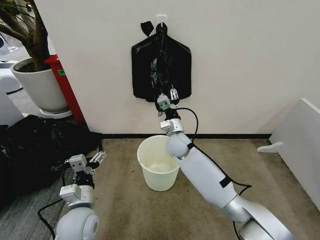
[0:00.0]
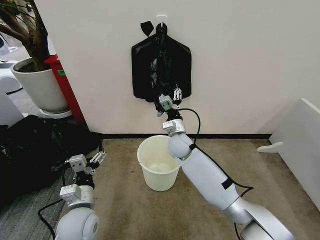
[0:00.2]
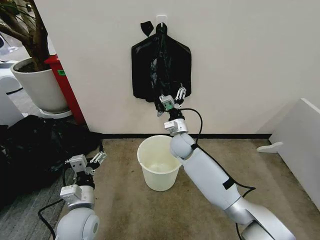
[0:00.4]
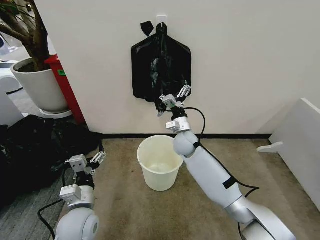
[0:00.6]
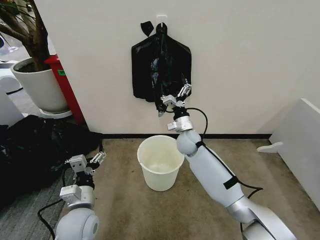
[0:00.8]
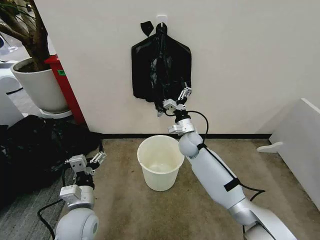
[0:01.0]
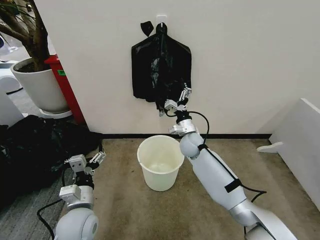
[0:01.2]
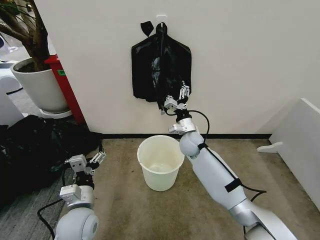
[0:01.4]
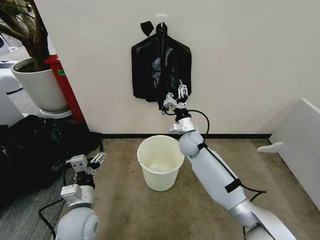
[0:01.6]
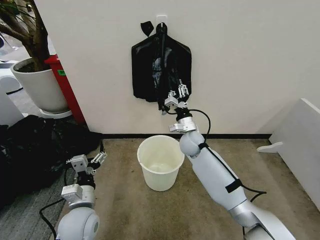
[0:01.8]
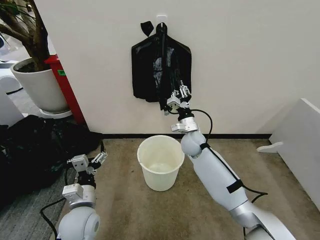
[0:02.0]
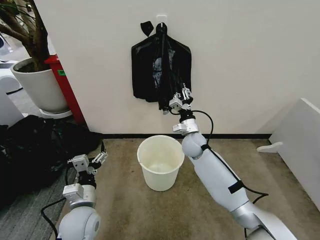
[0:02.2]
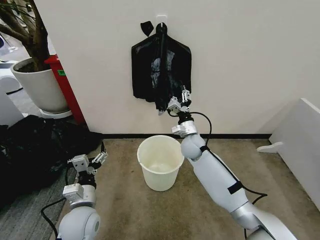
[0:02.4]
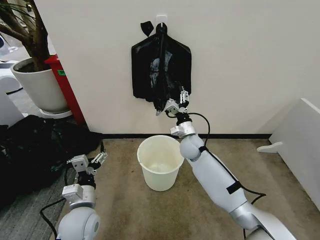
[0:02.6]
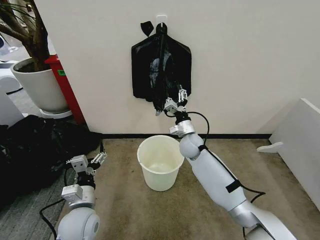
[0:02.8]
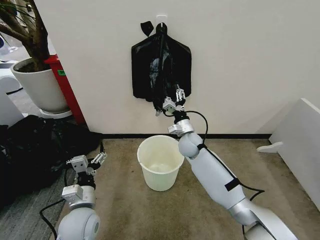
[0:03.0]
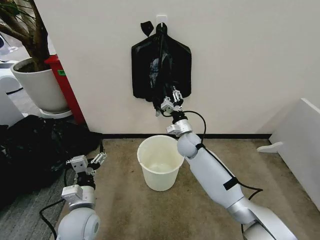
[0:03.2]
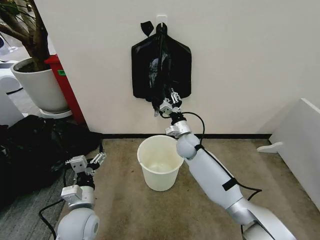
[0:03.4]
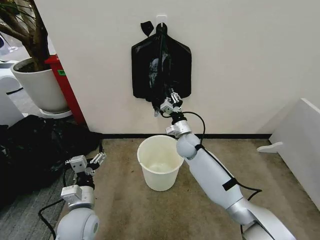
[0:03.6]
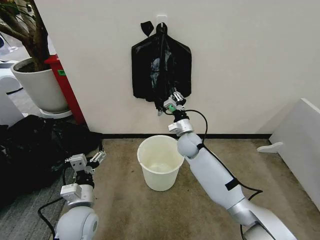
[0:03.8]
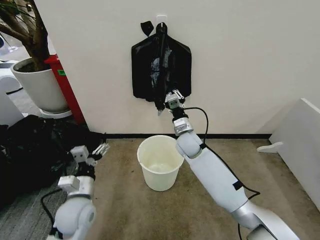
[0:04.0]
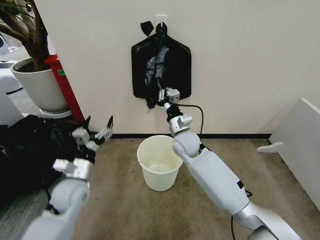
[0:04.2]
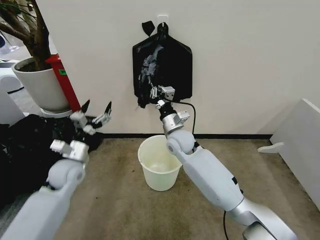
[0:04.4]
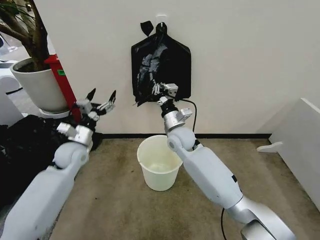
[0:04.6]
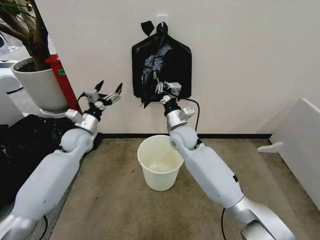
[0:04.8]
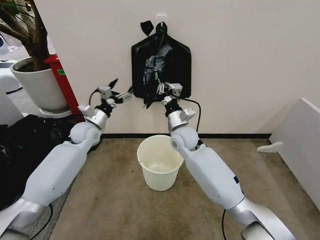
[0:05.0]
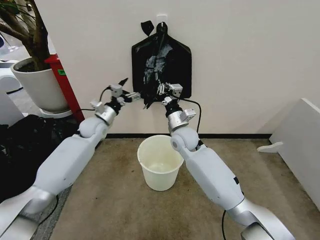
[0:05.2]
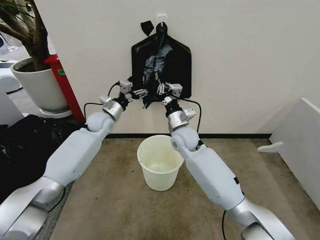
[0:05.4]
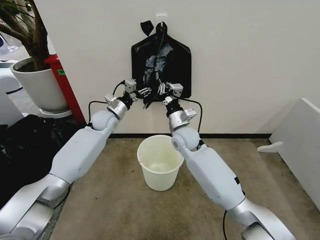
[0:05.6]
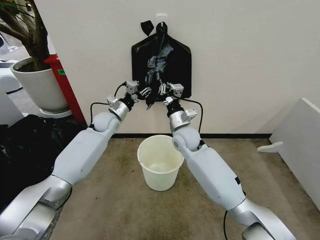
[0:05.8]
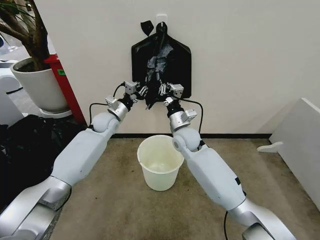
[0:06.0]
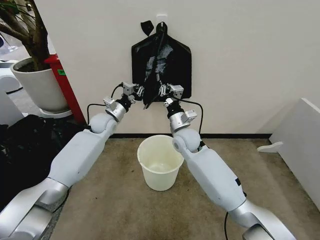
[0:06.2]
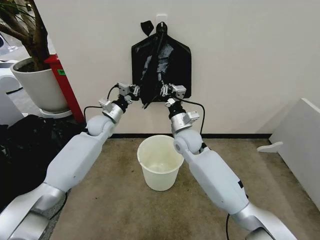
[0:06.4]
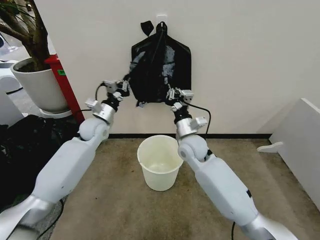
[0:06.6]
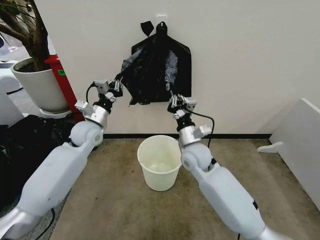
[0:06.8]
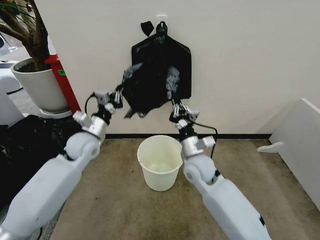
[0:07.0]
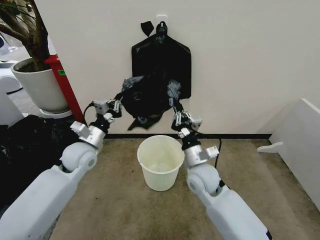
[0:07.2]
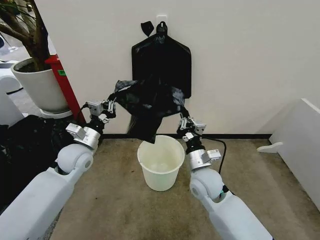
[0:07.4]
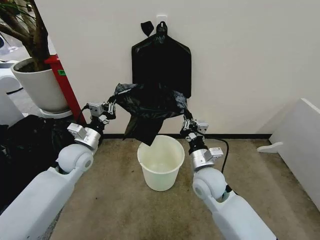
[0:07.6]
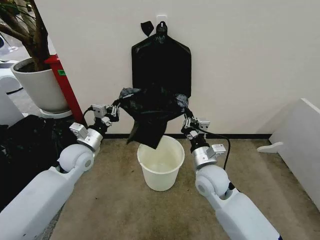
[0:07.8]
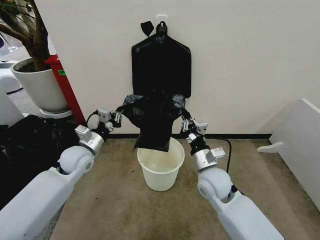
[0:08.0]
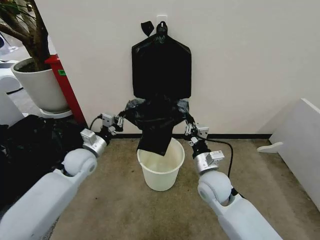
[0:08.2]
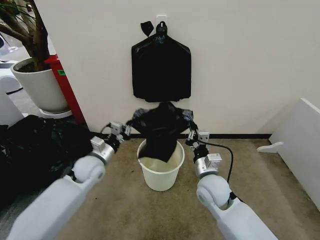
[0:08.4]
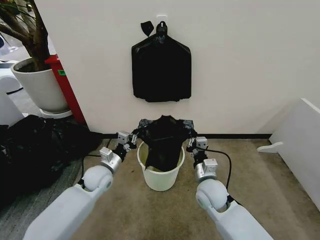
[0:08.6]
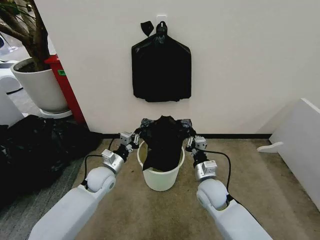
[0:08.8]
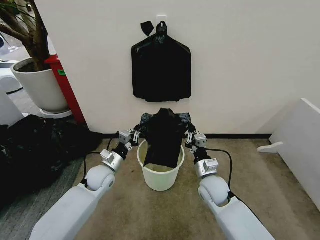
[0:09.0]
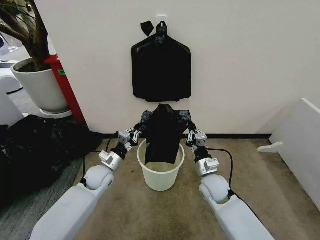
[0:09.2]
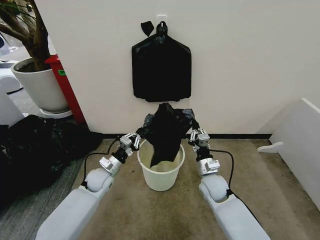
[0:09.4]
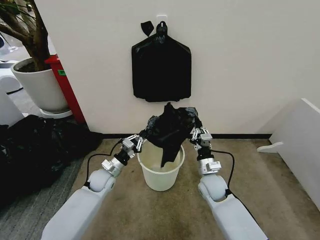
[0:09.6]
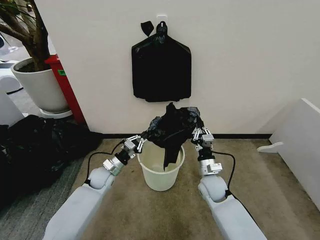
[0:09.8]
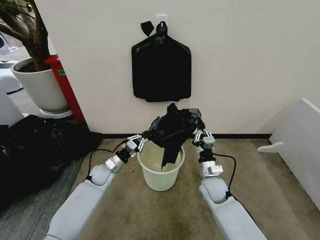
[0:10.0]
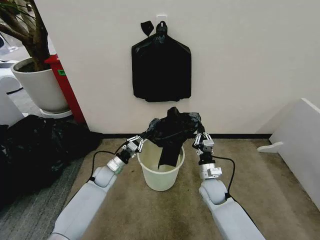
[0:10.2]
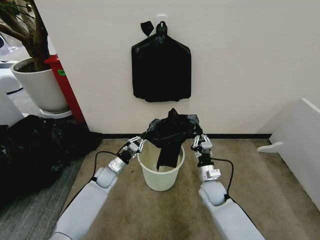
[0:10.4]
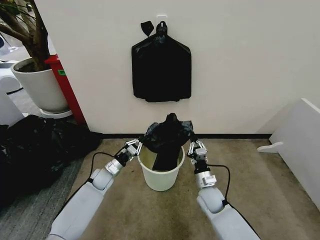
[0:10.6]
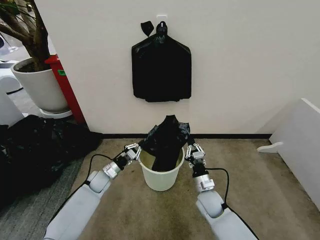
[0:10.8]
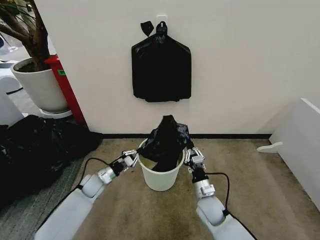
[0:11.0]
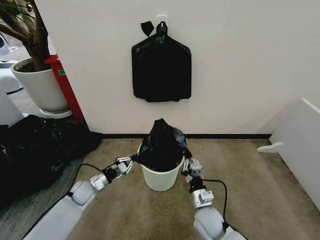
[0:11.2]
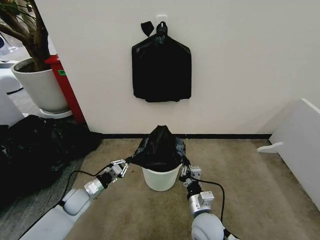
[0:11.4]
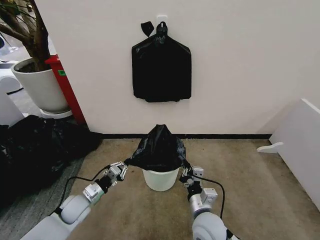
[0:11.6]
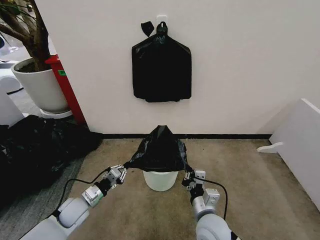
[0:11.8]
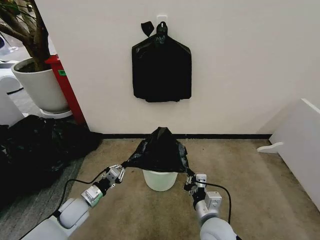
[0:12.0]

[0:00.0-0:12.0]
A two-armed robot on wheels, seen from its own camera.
Task of the whole recording: Place the garbage bag over the trash bin.
0:00.0 to 0:01.6: The right gripper moves to the right, roughly 5 cm, and opens, then closes again.
0:01.6 to 0:03.0: There are only small adjustments of the grippers.
0:03.0 to 0:04.4: The left gripper shifts roughly 15 cm forward and to the left, while the right gripper heads upward and to the left, covering roughly 10 cm, and closes its fingers.
0:04.4 to 0:06.0: The left gripper goes approximately 20 cm forward and to the right, and closes.
0:06.0 to 0:07.6: The grippers both shift backward by roughly 15 cm.
0:07.6 to 0:09.0: The left gripper heads downward, covering roughly 10 cm, while the right gripper shifts approximately 10 cm downward.
0:09.0 to 0:10.4: Both grippers move downward, roughly 10 cm.
0:10.4 to 0:12.0: The left gripper travels backward and to the left by about 15 cm. Meanwhile the right gripper goes some 15 cm backward and upward.

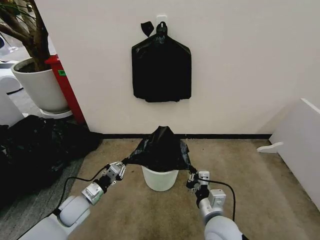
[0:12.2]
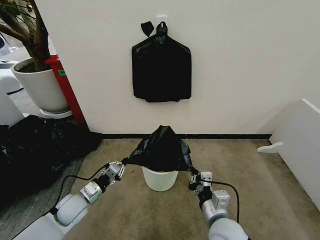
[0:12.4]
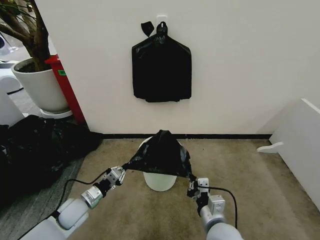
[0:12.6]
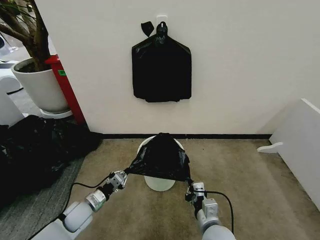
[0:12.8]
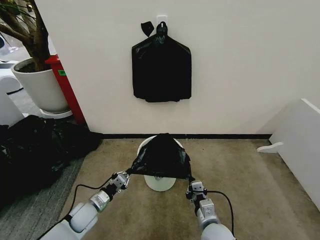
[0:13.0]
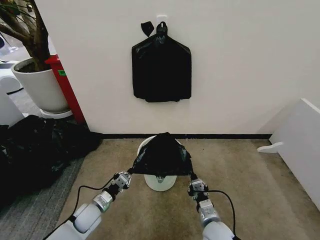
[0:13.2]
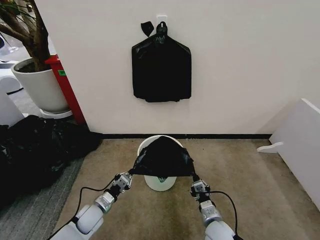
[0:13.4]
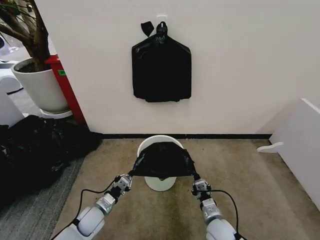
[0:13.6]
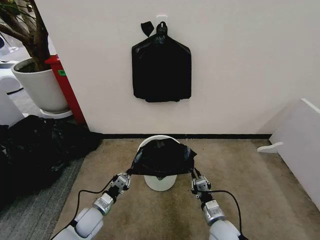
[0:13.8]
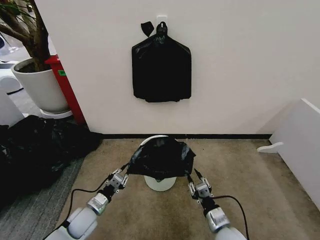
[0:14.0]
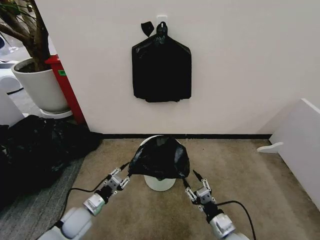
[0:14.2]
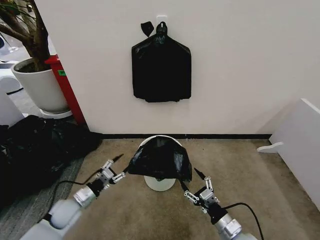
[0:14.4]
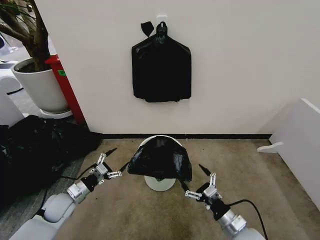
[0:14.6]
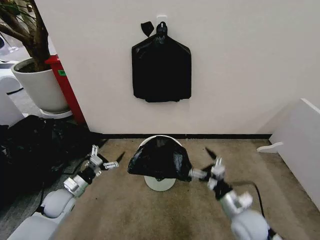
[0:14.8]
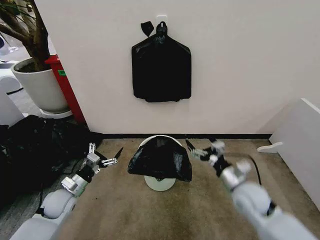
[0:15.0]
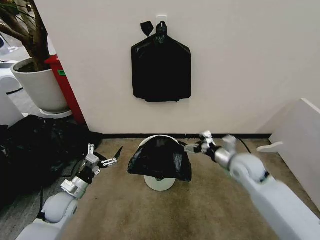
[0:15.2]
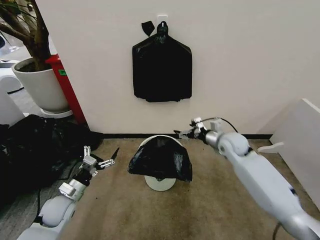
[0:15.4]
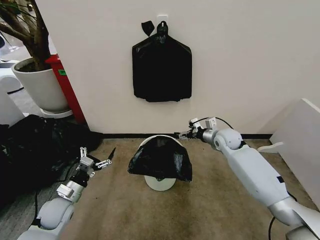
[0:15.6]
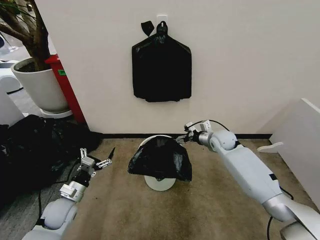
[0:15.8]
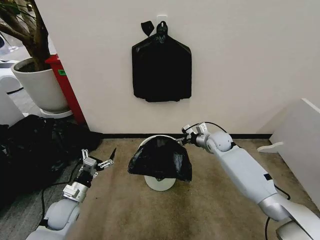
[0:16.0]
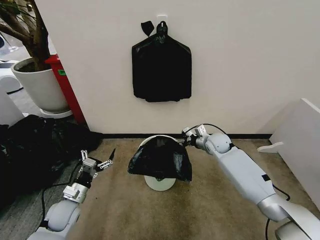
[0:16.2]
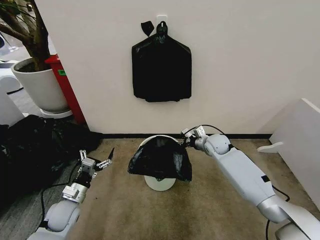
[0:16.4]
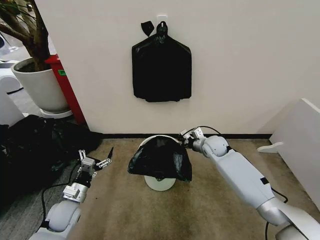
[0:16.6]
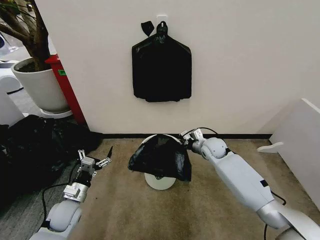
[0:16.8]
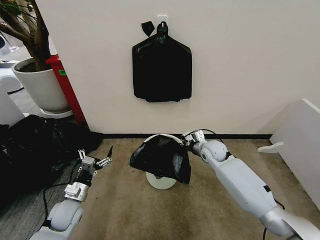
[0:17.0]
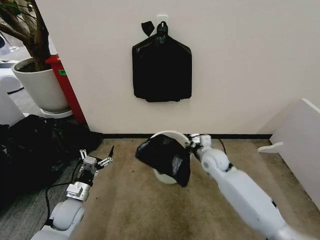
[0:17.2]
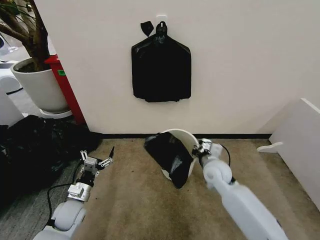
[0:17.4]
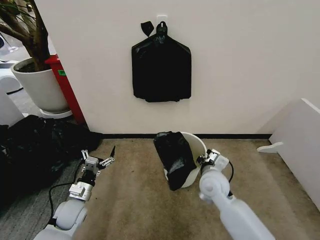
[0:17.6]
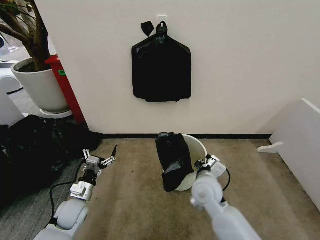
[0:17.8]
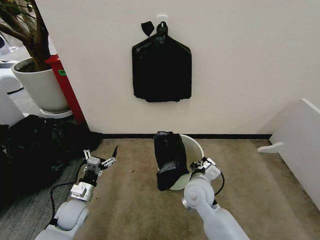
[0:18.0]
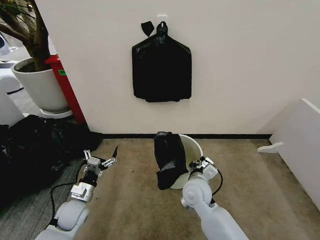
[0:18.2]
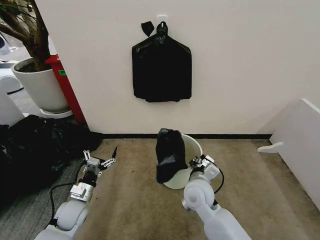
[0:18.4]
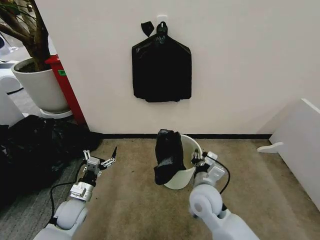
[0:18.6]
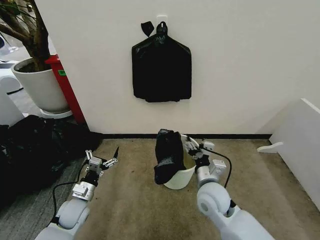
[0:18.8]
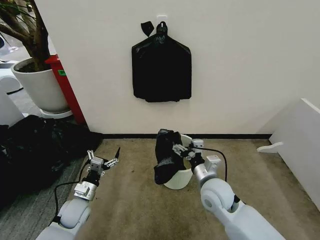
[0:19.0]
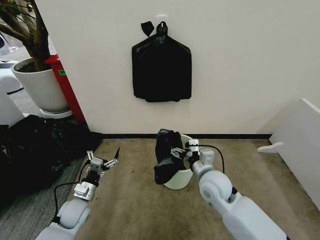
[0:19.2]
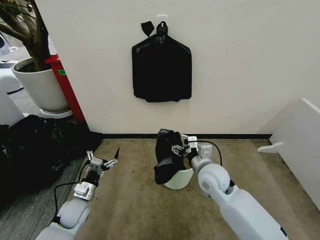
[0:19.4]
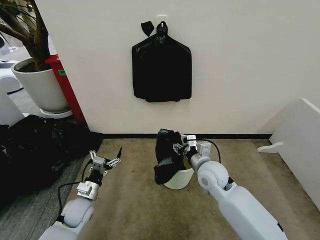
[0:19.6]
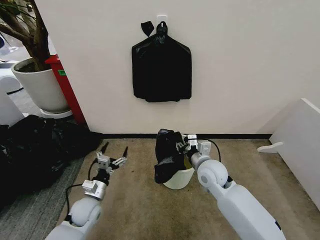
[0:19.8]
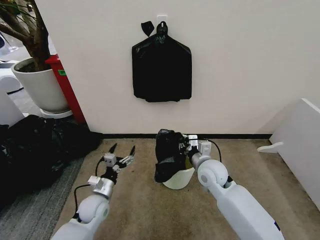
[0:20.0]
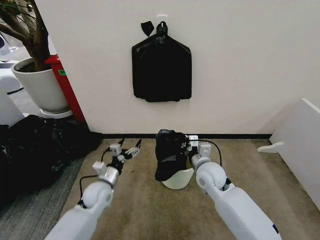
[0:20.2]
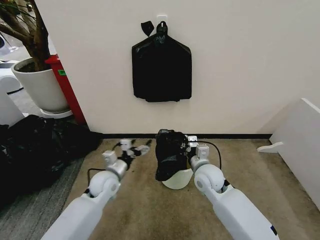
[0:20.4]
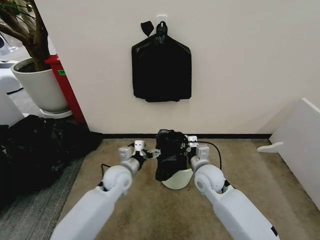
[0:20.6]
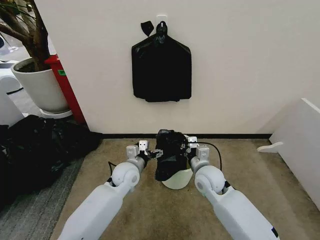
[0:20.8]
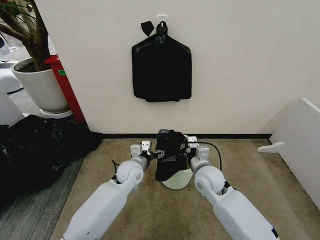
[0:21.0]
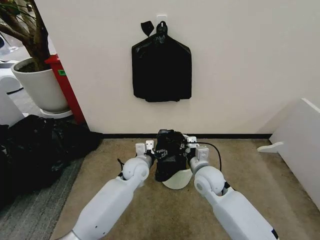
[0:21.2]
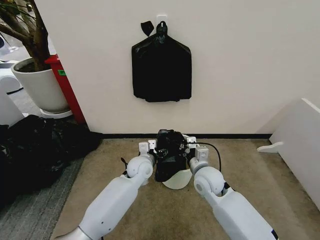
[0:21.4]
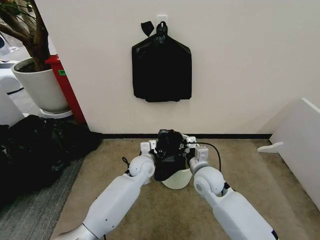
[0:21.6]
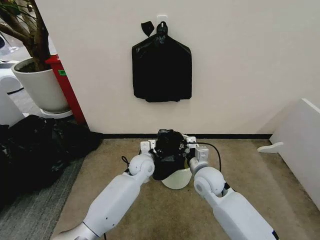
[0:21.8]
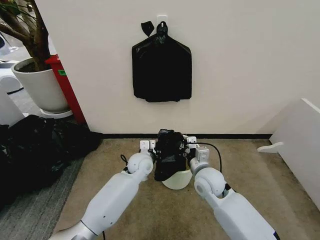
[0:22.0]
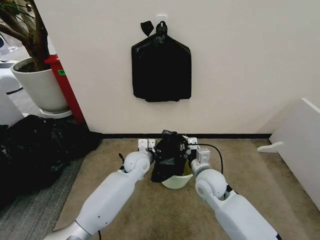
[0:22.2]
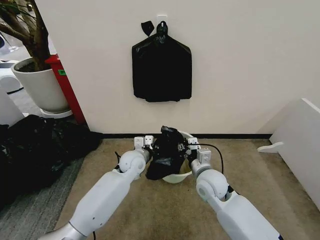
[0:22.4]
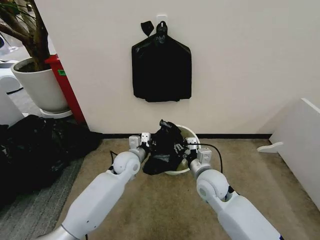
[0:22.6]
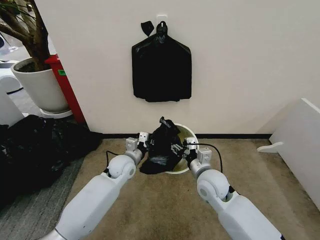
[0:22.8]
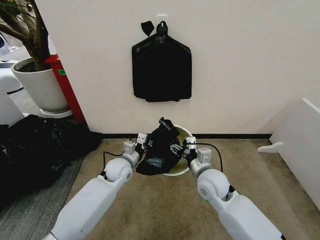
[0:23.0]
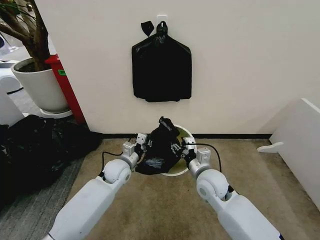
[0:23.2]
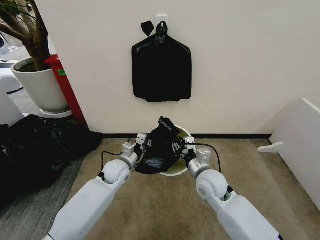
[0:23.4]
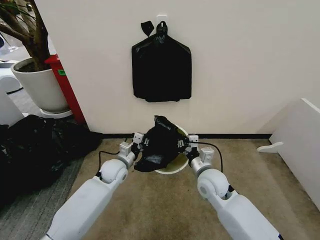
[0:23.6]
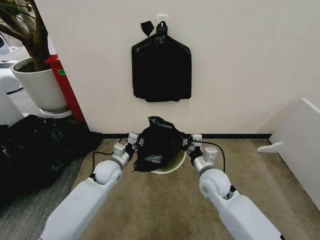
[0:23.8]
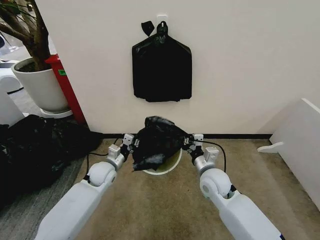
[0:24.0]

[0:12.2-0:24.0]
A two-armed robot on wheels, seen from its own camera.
Task of the whole recording: Place the garbage bag over the trash bin.
0:12.2 to 0:13.6: The left gripper heads downward, covering some 5 cm; the right gripper heads downward, covering roughly 15 cm.
0:13.6 to 0:15.2: The left gripper heads upward and to the left, covering some 10 cm, and opens its fingers. The right gripper is displaced upward and forward by approximately 25 cm, and opens its fingers.
0:15.2 to 0:16.6: The right gripper travels forward, downward and to the left by about 15 cm, and closes up.
0:16.6 to 0:18.2: The right gripper travels backward and to the left by some 20 cm.
0:18.2 to 0:19.6: The right gripper is displaced upward and to the right by approximately 5 cm, and opens its fingers.
0:19.6 to 0:21.0: The left gripper heads to the right, forward and upward, covering about 25 cm, while the right gripper closes up.
0:21.0 to 0:22.6: The right gripper opens up, while the left gripper closes its fingers.
0:22.6 to 0:24.0: The right gripper closes up; the left gripper heads to the left, covering some 10 cm.
